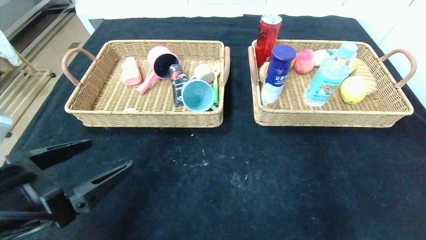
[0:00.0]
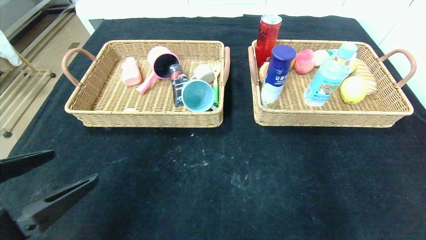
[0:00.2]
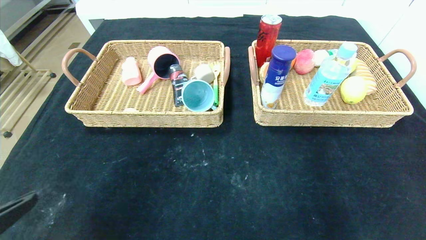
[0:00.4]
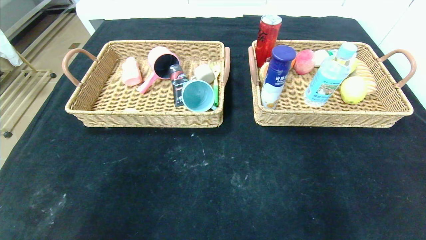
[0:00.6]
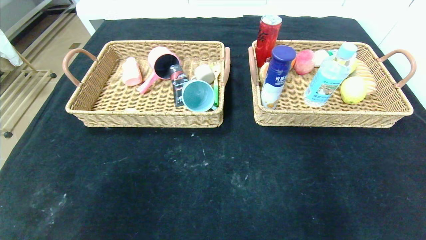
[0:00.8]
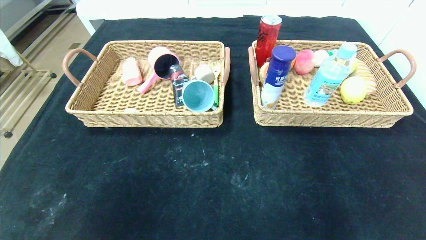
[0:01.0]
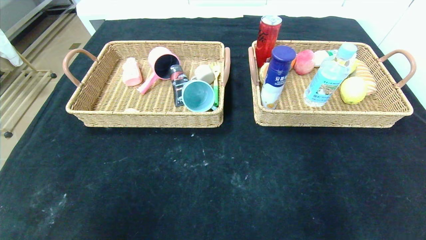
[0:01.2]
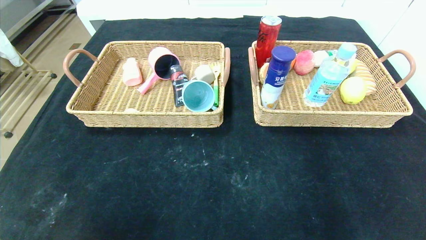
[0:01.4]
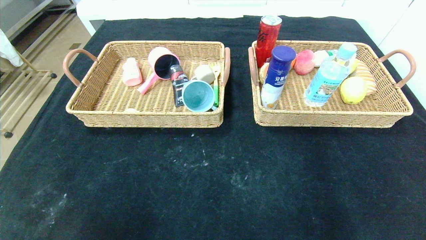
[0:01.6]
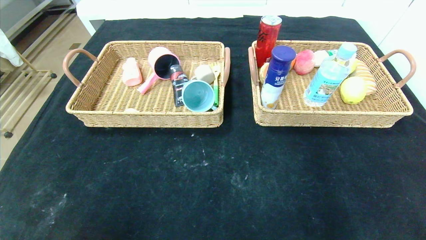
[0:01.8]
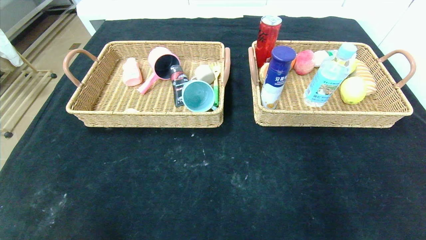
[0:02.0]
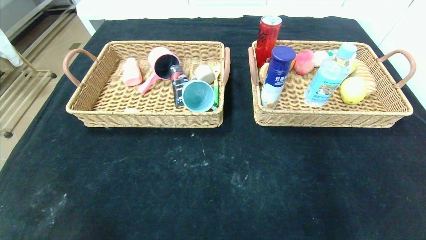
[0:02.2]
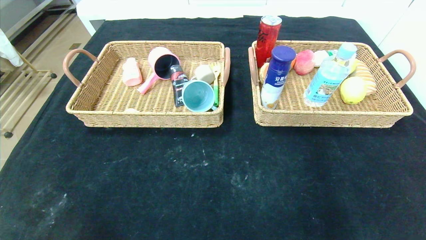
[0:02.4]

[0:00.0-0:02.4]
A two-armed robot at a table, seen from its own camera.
0:00.0 to 0:01.2: The right gripper goes about 20 cm backward and downward. Meanwhile the left gripper moves backward, roughly 20 cm.
